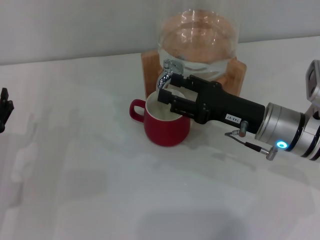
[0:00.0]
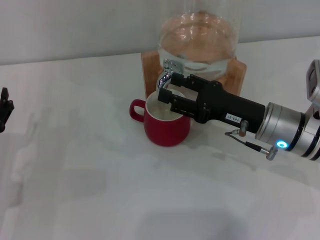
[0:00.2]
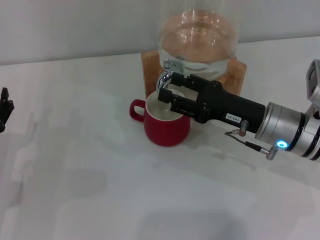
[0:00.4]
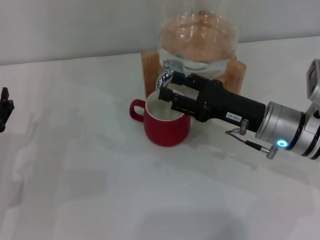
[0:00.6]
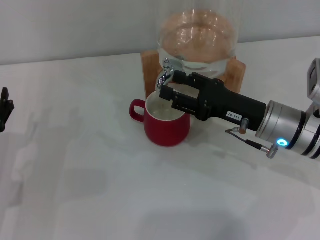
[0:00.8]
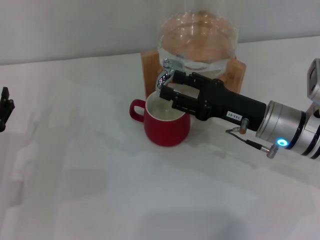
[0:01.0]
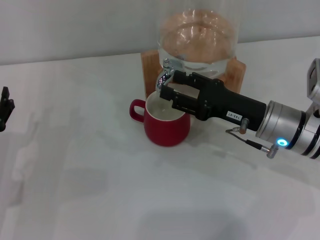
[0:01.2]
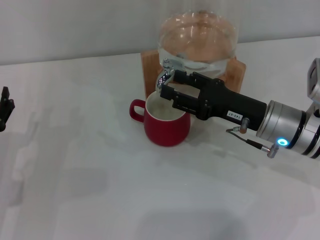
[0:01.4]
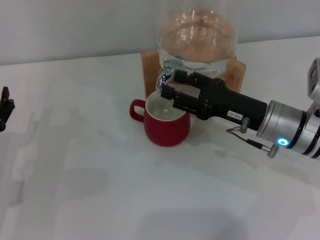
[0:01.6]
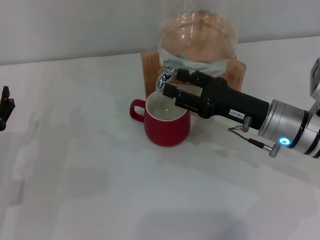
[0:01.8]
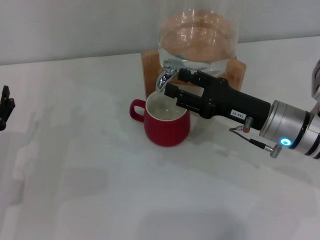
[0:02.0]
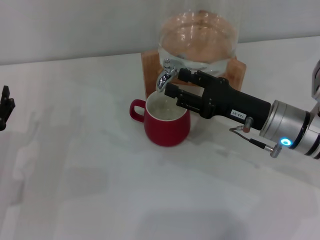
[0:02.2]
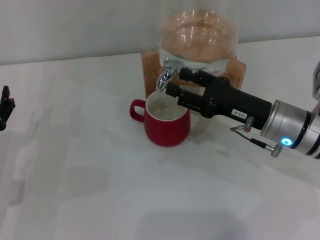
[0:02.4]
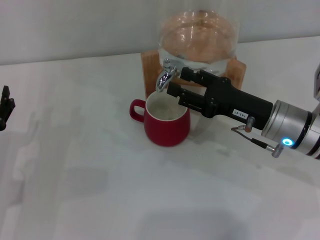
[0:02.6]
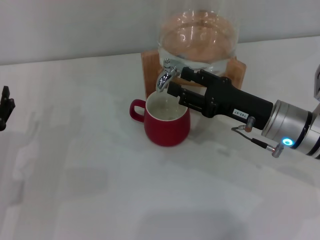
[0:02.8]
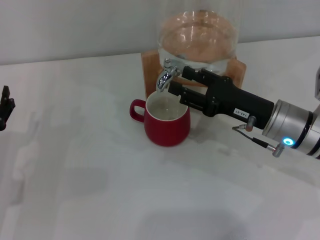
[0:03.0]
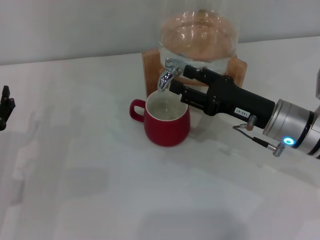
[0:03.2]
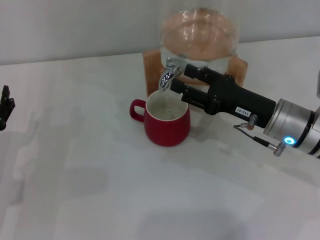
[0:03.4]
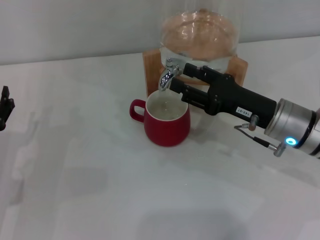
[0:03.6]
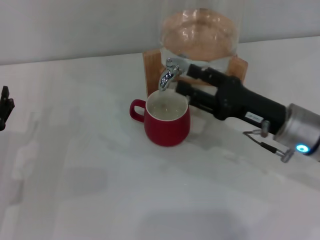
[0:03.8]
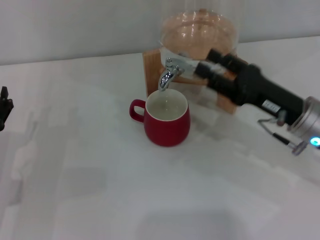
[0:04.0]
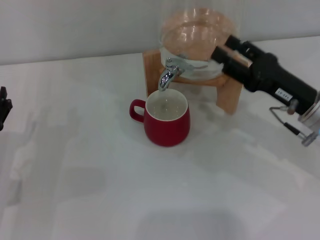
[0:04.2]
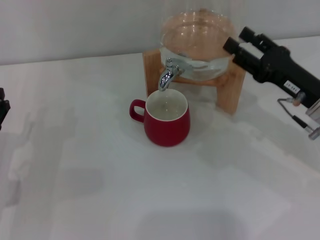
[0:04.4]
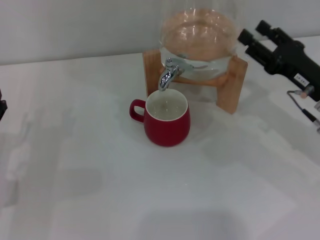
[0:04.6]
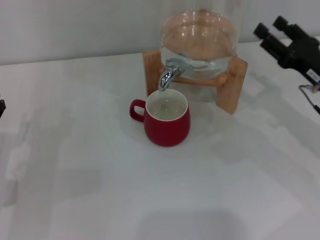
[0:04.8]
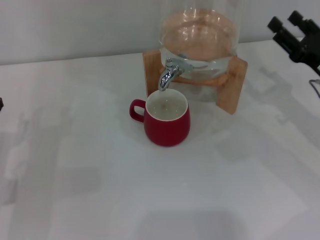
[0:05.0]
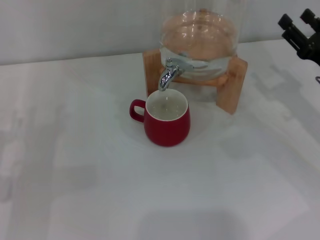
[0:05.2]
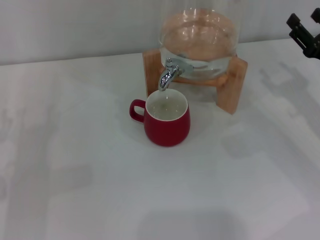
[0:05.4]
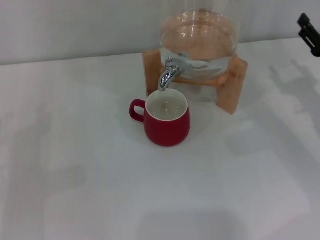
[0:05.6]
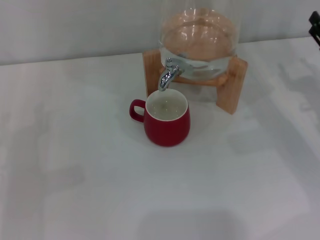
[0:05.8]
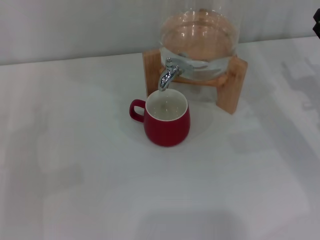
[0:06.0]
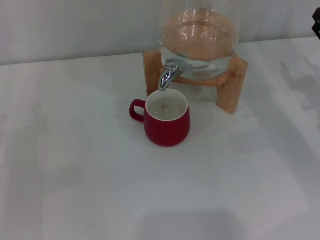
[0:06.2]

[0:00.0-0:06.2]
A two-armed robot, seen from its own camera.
Task of the whole recording: the left gripper pick up the red cup and place it horizontally under the faucet, the right gripper turn on the faucet to fill the cup, and then turn off the faucet.
Step, 0:00.0 to 0:03.8: Close the dispenser valve with the right gripper.
0:00.0 to 0:03.2: The two grippers keep their place.
0:03.2 to 0:04.6: The right gripper is displaced to the right by about 5 cm.
0:04.6 to 0:06.2: The right gripper travels to the right by some 5 cm.
